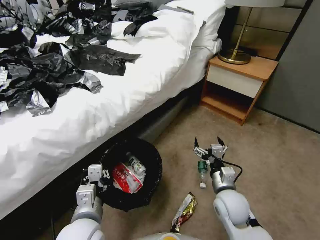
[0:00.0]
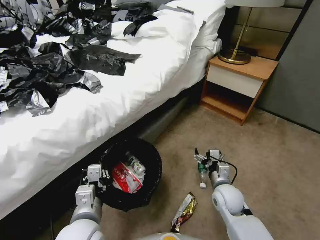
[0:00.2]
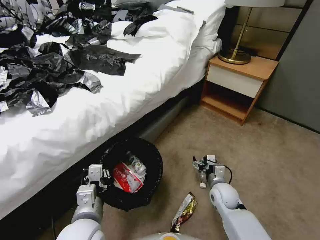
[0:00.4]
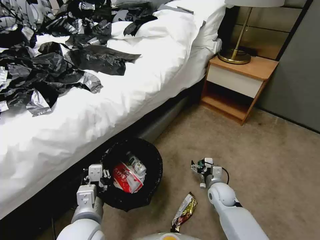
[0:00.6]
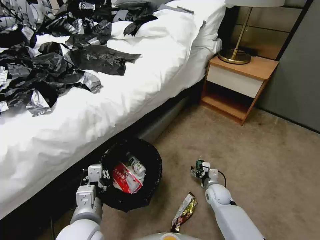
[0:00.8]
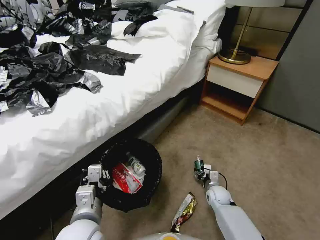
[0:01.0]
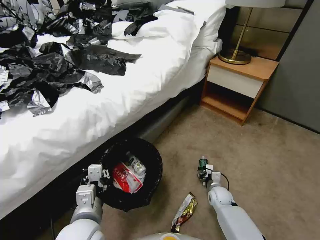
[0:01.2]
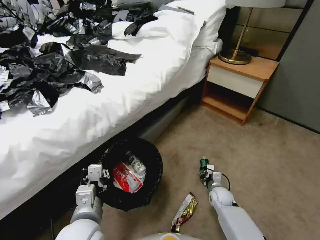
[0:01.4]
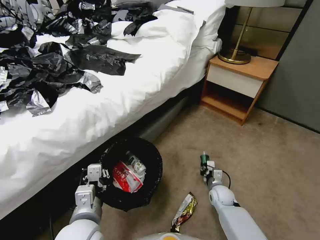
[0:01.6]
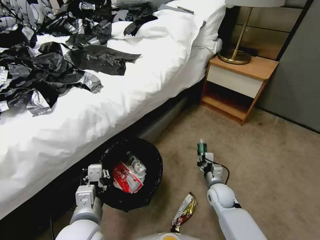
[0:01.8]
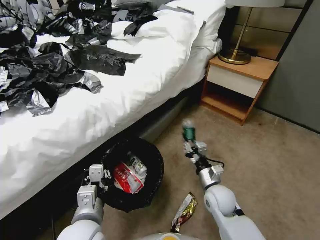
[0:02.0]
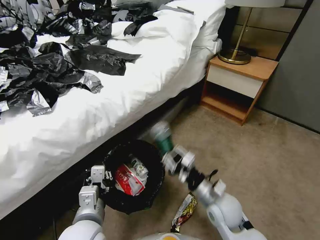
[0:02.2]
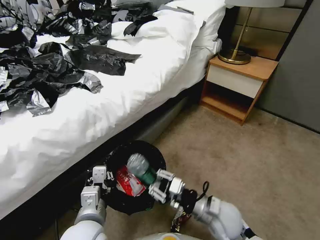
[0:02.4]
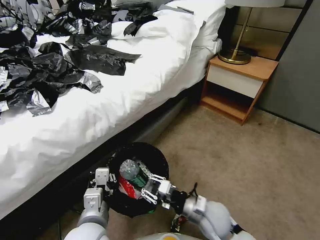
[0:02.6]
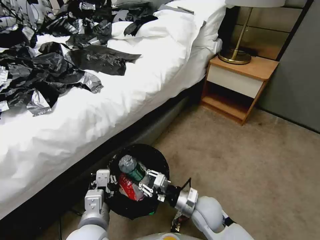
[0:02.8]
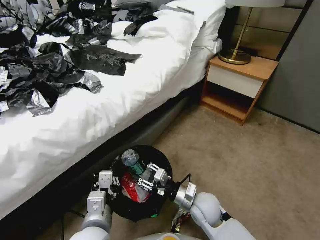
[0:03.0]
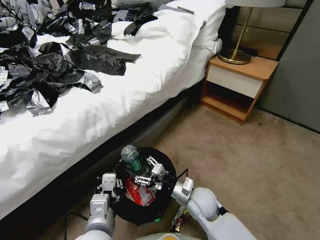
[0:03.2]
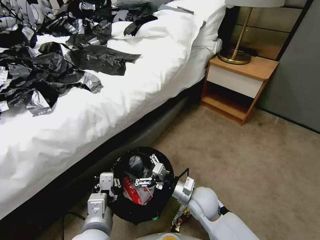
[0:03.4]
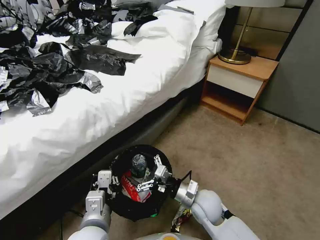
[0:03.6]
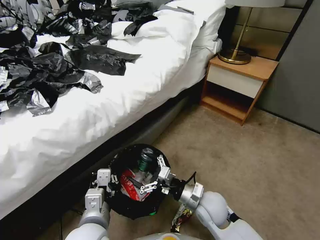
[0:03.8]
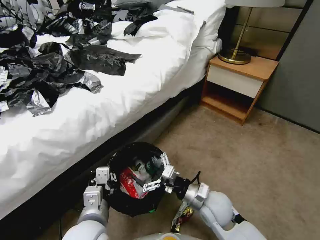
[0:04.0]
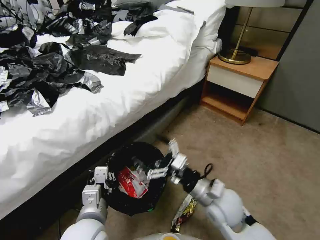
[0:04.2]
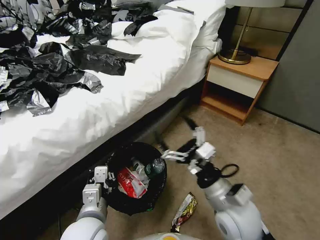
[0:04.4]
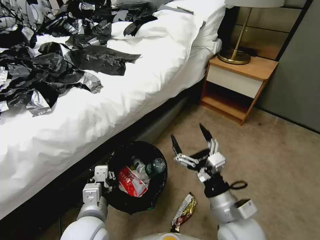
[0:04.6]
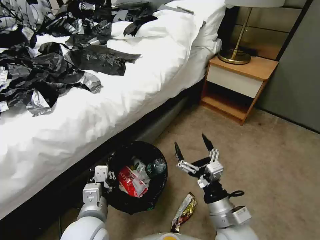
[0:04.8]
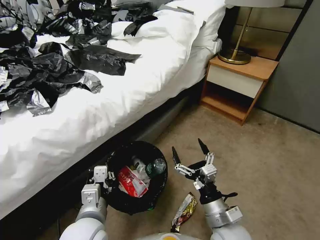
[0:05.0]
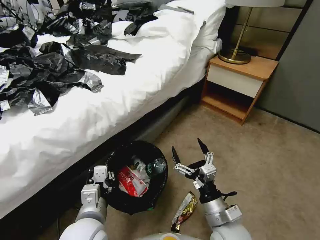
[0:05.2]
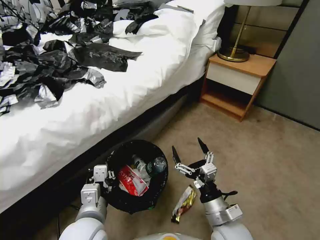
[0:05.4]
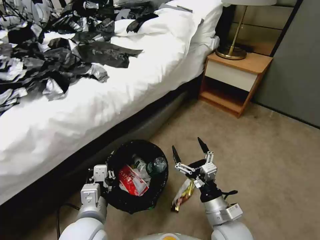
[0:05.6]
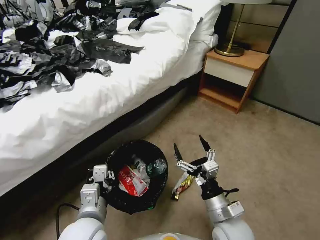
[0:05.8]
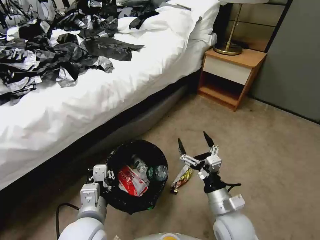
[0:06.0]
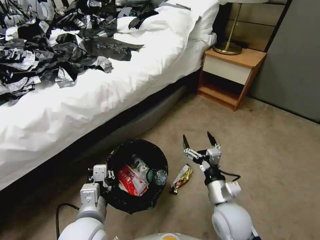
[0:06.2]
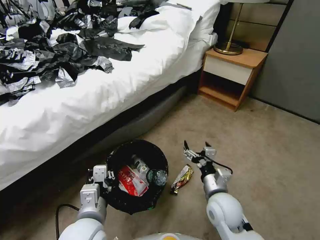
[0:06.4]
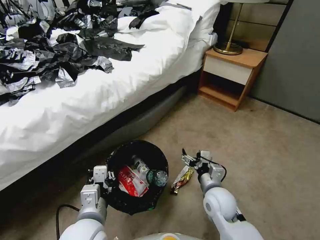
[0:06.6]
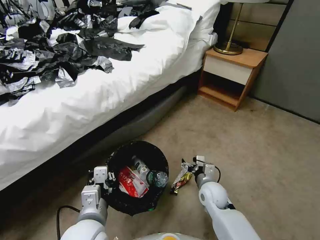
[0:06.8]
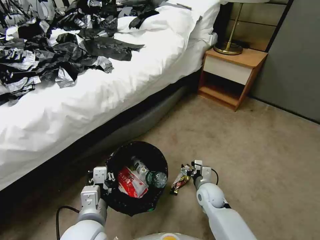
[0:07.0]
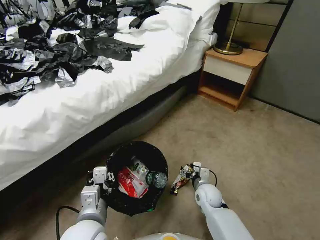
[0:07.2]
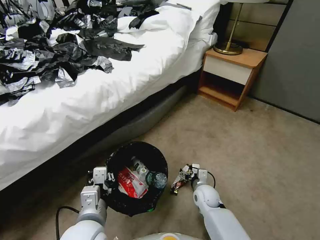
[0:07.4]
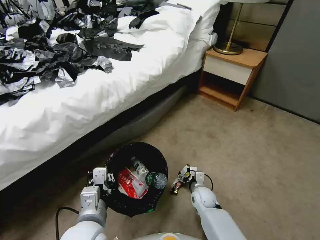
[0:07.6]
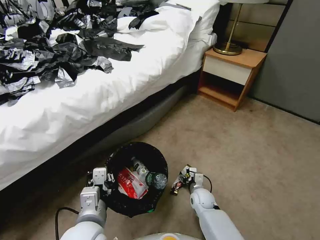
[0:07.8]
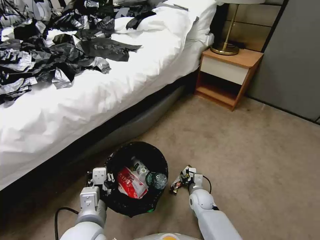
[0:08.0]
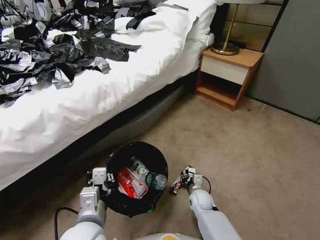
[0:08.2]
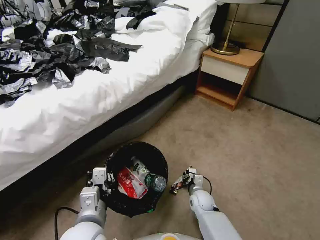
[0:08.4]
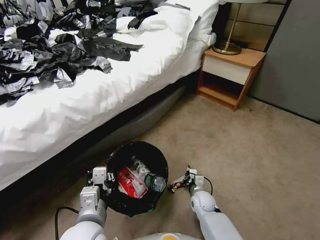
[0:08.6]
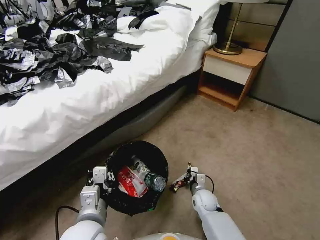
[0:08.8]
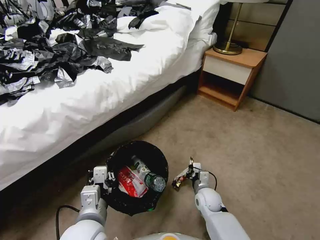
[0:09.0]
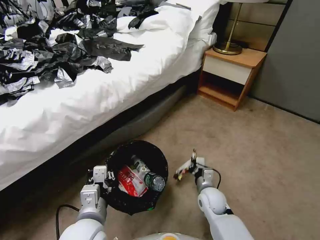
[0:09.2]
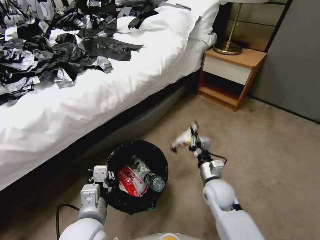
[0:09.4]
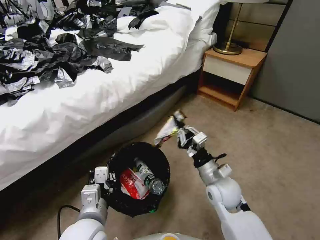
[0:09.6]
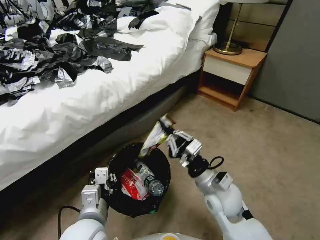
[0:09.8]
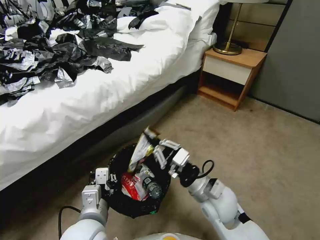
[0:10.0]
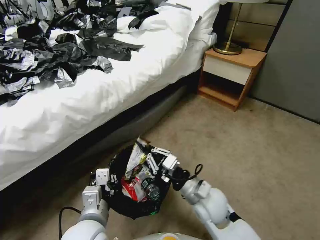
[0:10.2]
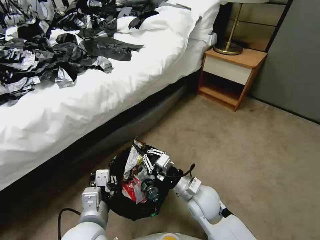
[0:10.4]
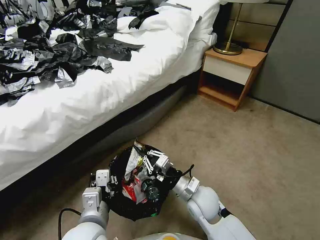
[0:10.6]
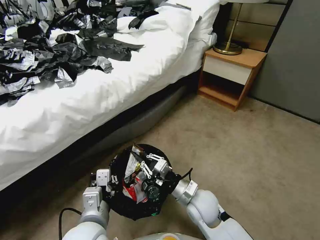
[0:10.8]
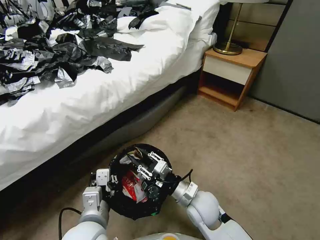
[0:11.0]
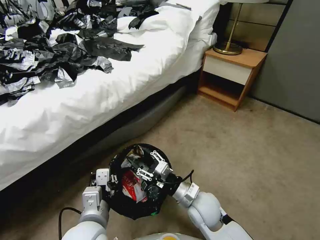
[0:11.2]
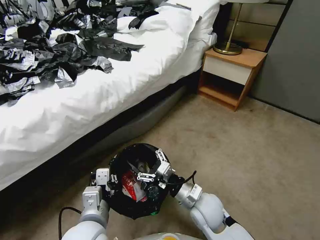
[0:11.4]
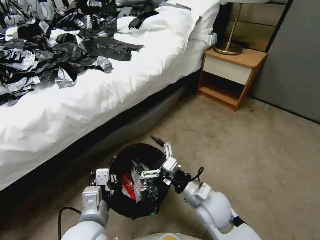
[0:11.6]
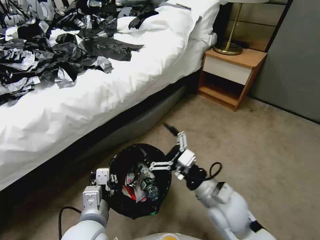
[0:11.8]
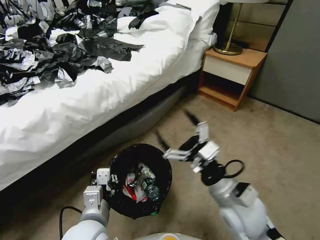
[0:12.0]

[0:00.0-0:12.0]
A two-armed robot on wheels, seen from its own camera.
Task of the whole recording: Pick up the trash bin, then pick up the garbage from the floor and place it into the trash bin.
0:00.0 to 0:01.6: The right gripper is displaced downward by some 15 cm, and closes its fingers.
0:01.6 to 0:03.0: The right gripper goes about 20 cm upward, to the left and backward.
0:03.0 to 0:04.4: The right gripper is displaced upward by about 15 cm, and opens.
0:04.4 to 0:06.0: The right gripper heads downward, covering some 10 cm.
0:06.0 to 0:07.6: The right gripper heads downward and forward, covering about 20 cm.
0:07.6 to 0:09.0: The right gripper closes its fingers.
0:09.0 to 0:10.4: The right gripper is displaced upward by approximately 15 cm.
0:10.4 to 0:12.0: The right gripper is displaced upward and to the right by approximately 10 cm, and opens its fingers.

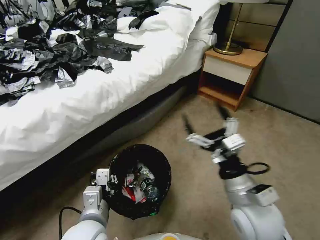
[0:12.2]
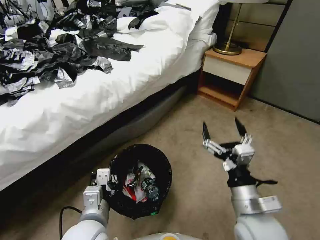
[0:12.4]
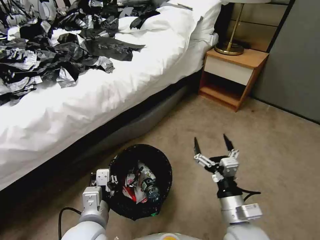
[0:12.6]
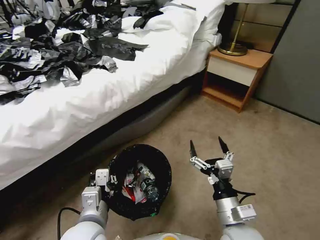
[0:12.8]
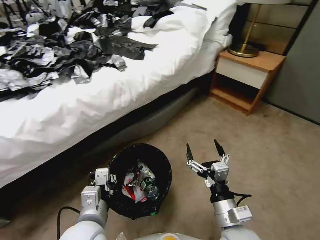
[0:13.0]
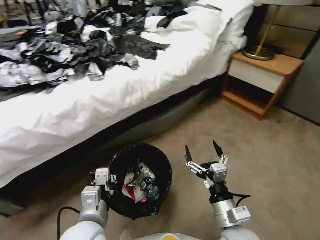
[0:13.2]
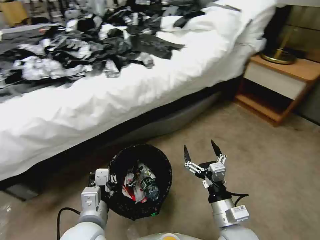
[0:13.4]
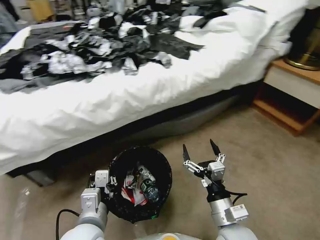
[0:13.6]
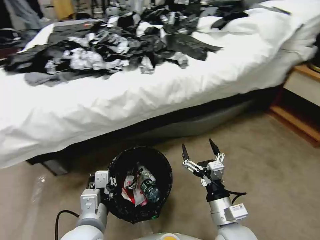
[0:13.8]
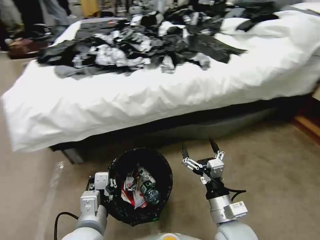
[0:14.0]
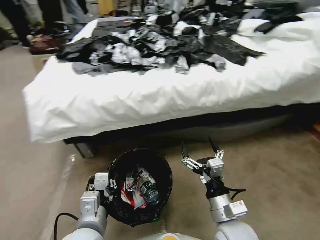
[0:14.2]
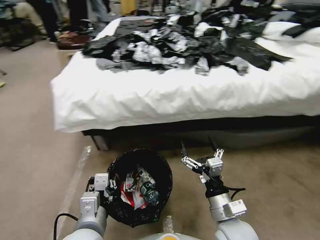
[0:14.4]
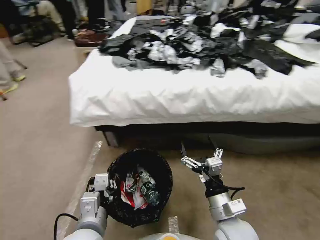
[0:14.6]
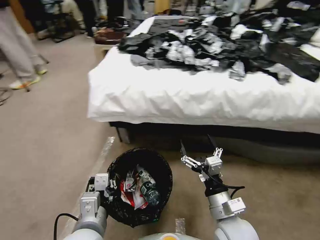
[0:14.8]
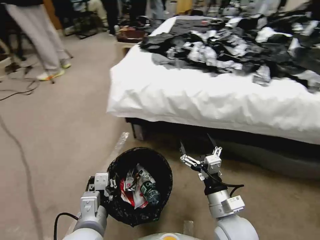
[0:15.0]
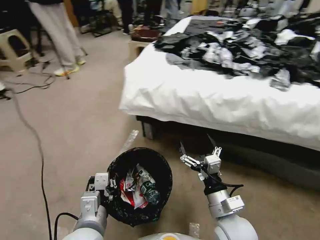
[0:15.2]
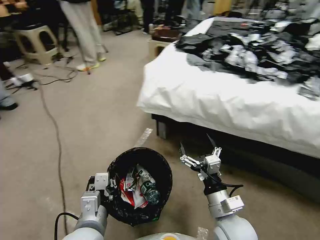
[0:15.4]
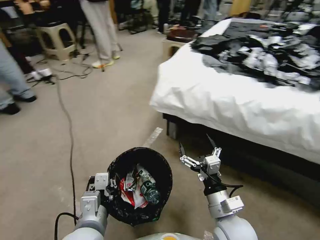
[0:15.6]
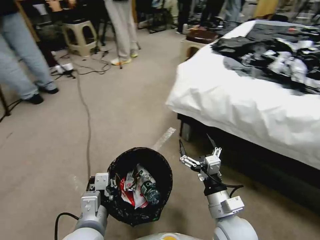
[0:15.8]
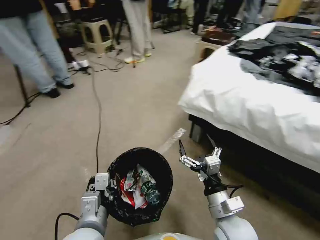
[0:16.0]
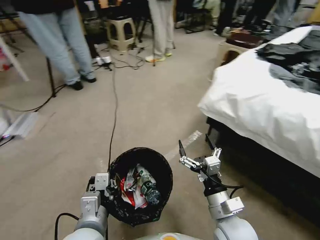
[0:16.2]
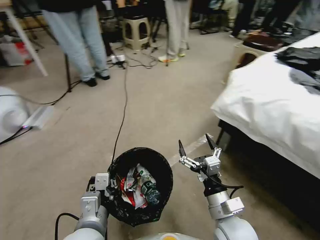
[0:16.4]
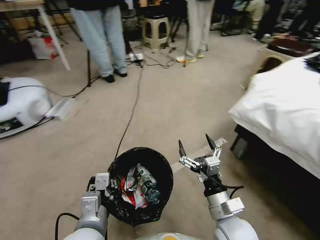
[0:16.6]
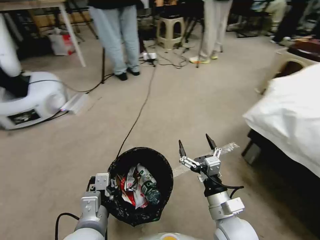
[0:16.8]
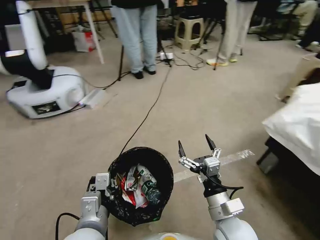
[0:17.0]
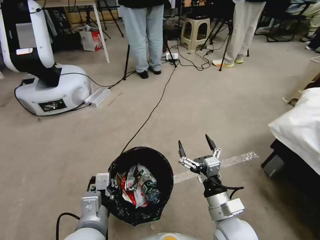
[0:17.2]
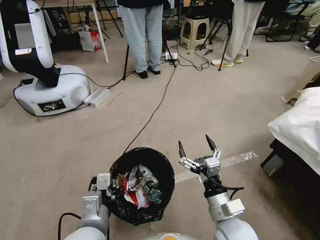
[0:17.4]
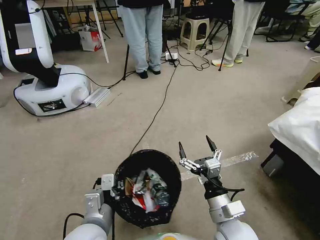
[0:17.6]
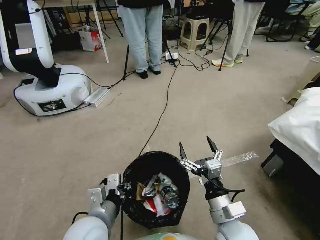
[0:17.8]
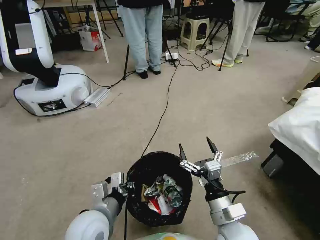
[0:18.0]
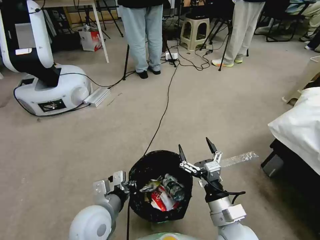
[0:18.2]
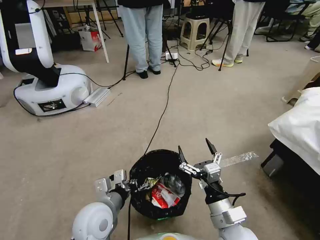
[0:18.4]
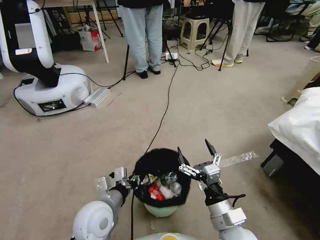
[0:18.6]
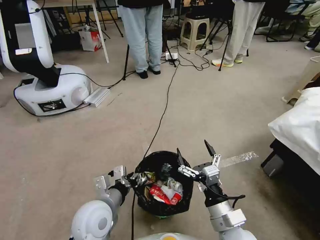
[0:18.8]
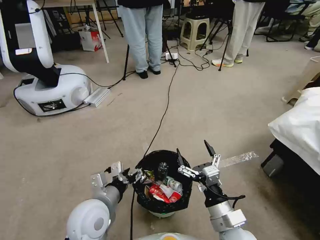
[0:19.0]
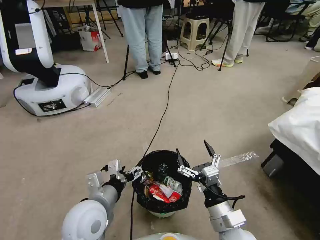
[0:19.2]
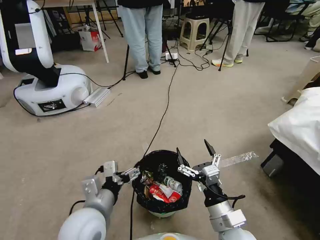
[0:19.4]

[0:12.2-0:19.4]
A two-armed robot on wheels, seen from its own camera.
Task of the whole recording: Pick up the trash bin, then pick up the garbage from the floor and place it into the trash bin.
0:12.2 to 0:13.6: The right gripper travels downward by roughly 10 cm.
0:18.0 to 0:19.4: The left gripper opens up.
